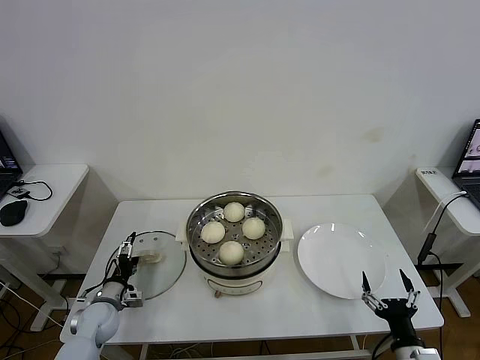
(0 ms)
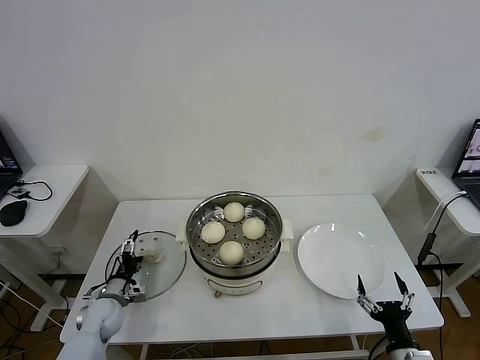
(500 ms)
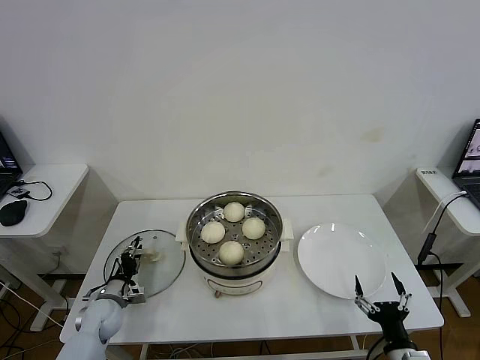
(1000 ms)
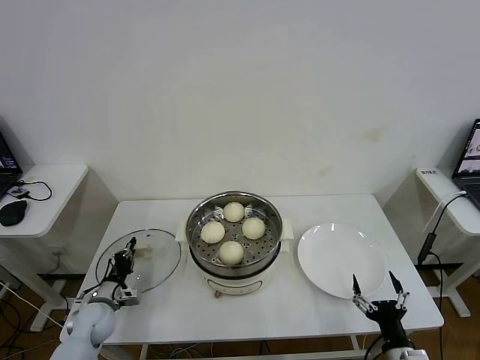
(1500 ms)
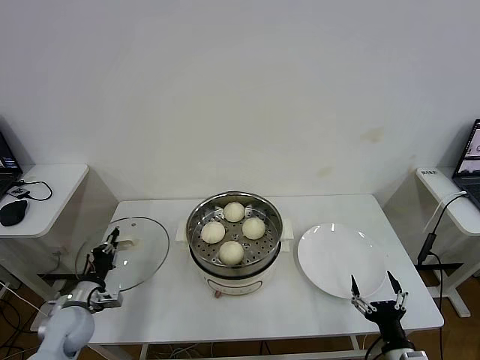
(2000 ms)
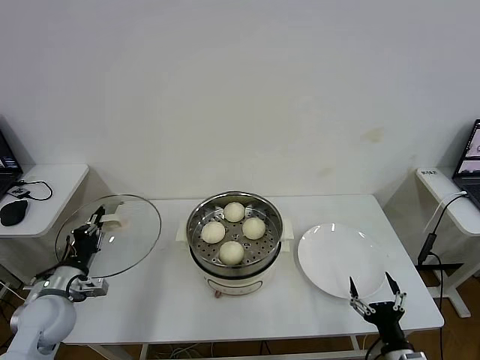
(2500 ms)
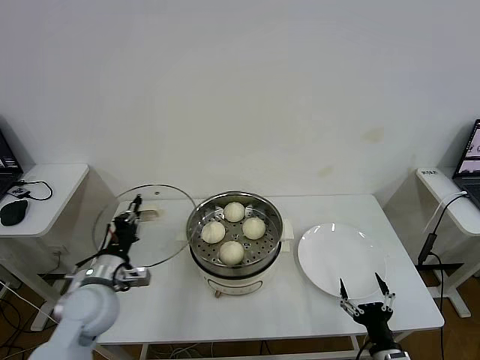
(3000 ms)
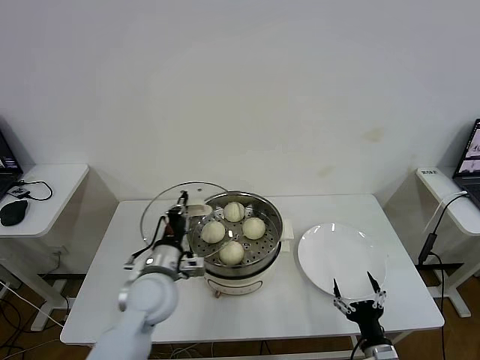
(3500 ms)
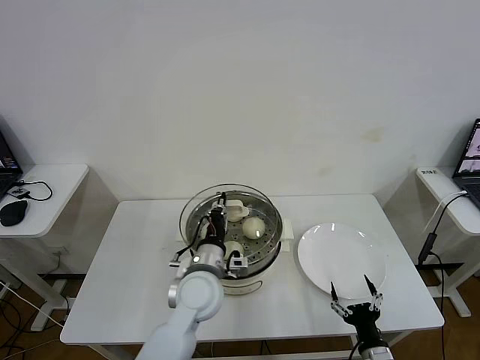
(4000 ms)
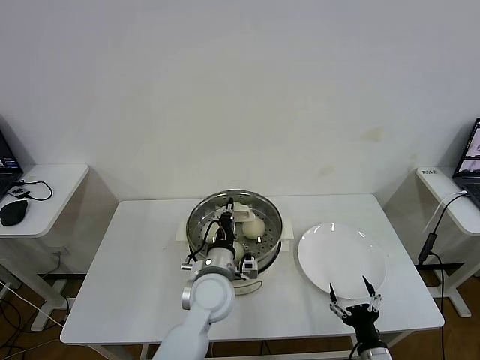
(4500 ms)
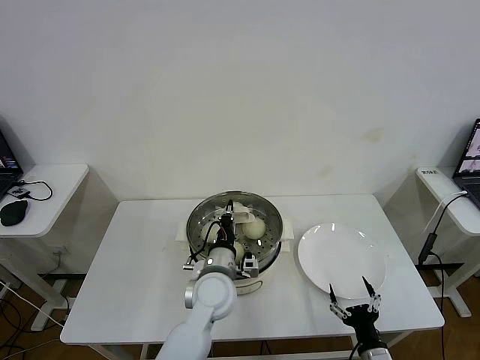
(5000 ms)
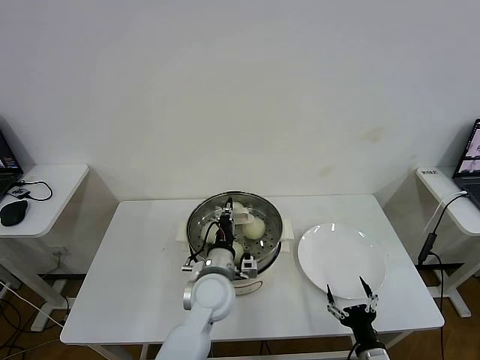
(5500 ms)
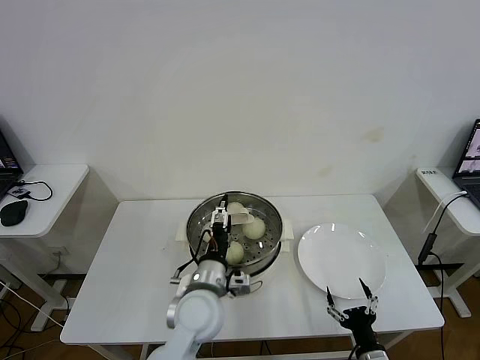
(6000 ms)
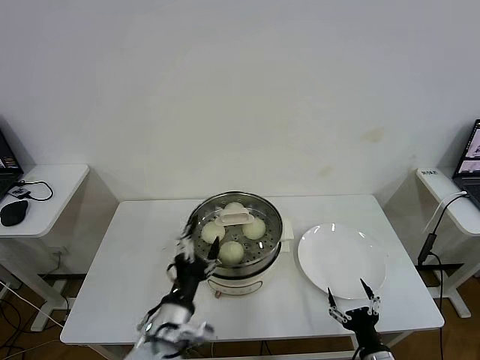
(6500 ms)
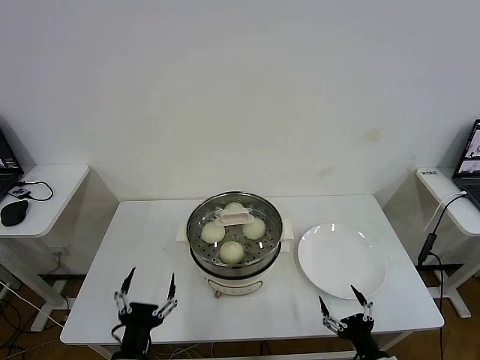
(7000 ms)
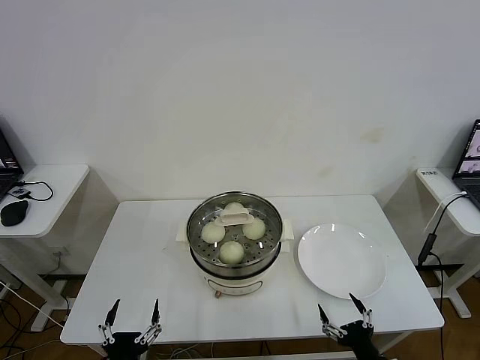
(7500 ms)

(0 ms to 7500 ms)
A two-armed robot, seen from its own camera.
Task of the whole recording: take steamed baozi put them in steamer then cover it.
Step, 2000 ms - 6000 ms: Place the pot lid on the steamer with left gripper.
0 ms - 2000 ms: The left gripper moves upward, about 5 cm, and closes up.
2000 ms - 4000 ms: The left gripper is displaced to the right and upward by roughly 30 cm.
4000 ms - 5500 ms: The grippers stay close to where they were, moving slightly.
5500 ms - 7500 ms: The left gripper travels backward and to the left by roughly 30 cm, and opens up; the right gripper shifts by approximately 5 cm.
